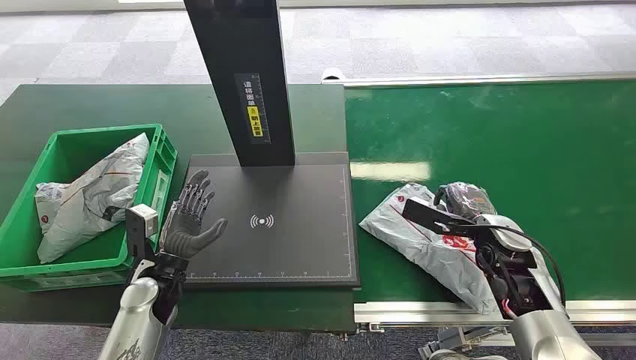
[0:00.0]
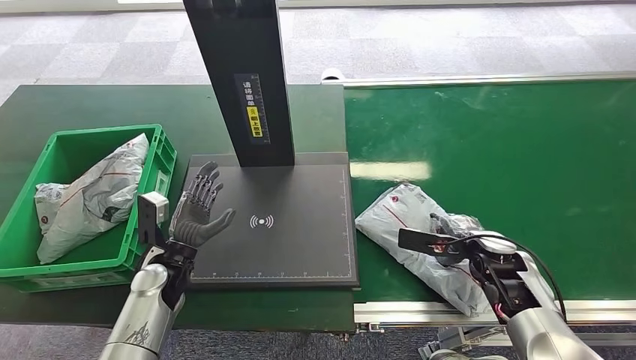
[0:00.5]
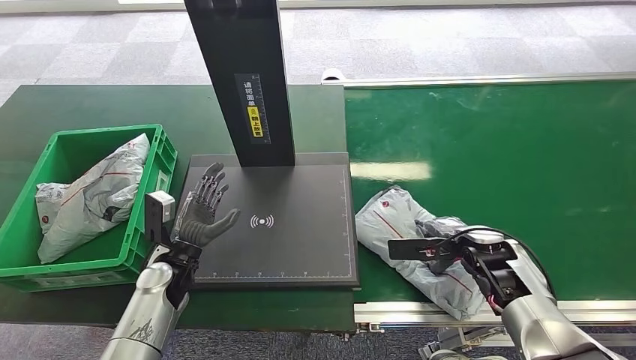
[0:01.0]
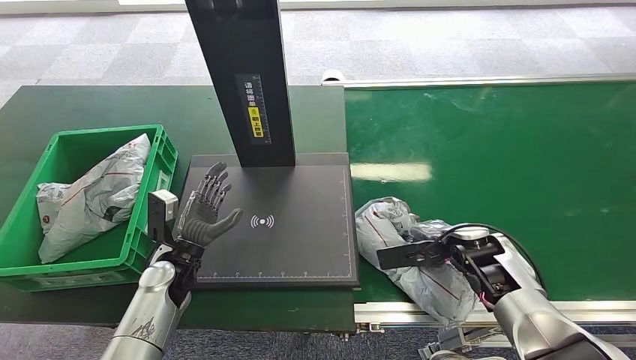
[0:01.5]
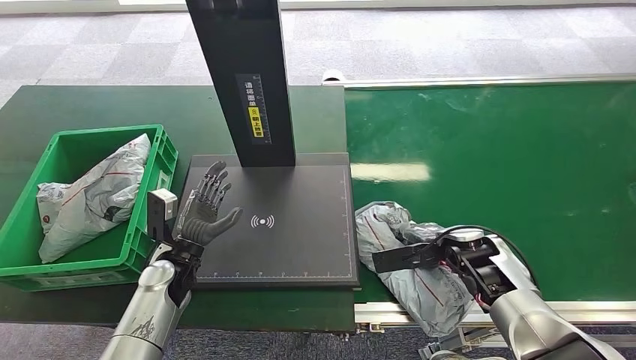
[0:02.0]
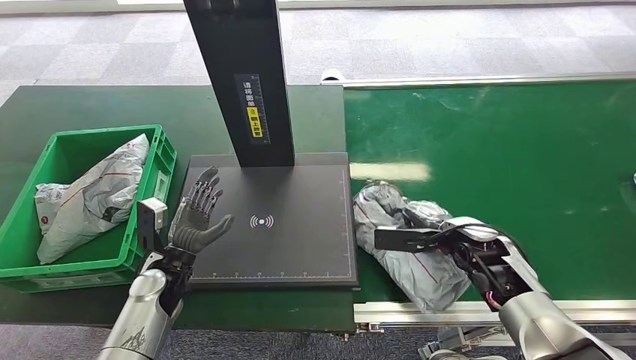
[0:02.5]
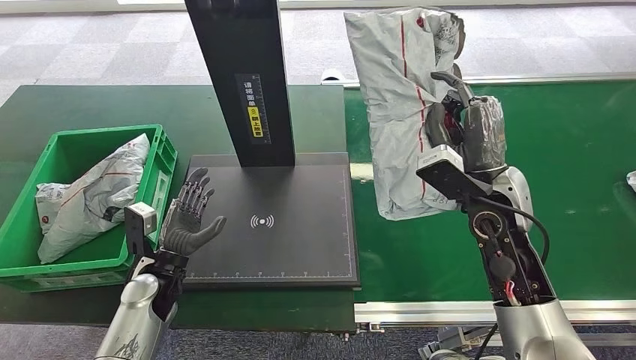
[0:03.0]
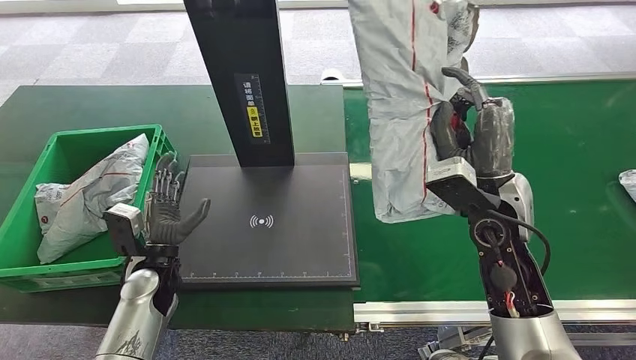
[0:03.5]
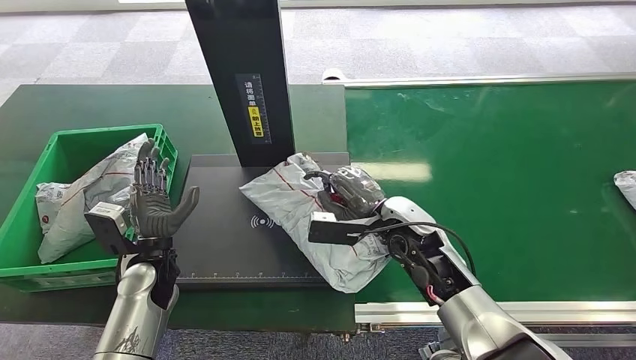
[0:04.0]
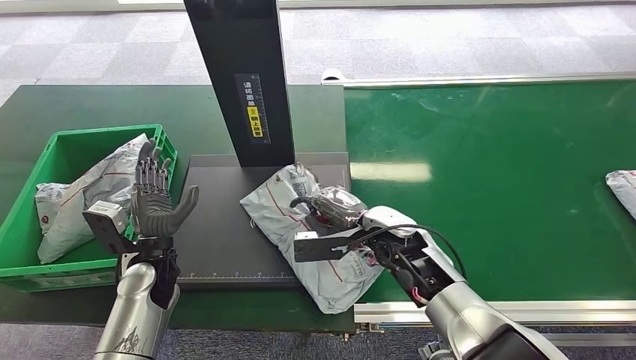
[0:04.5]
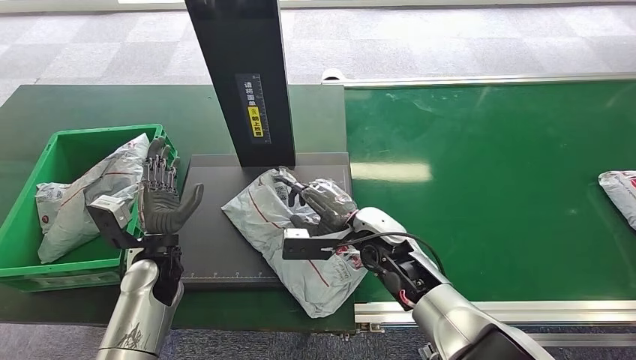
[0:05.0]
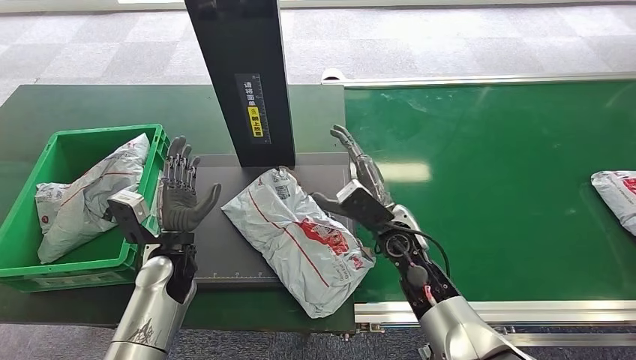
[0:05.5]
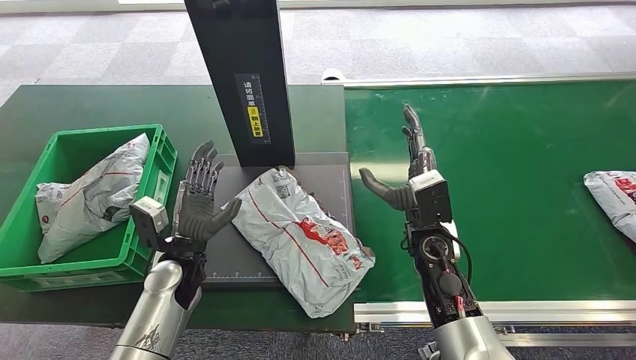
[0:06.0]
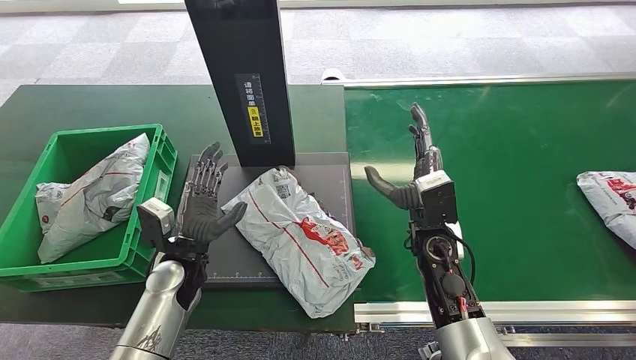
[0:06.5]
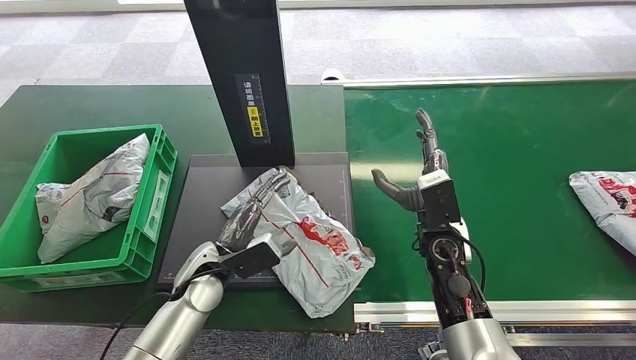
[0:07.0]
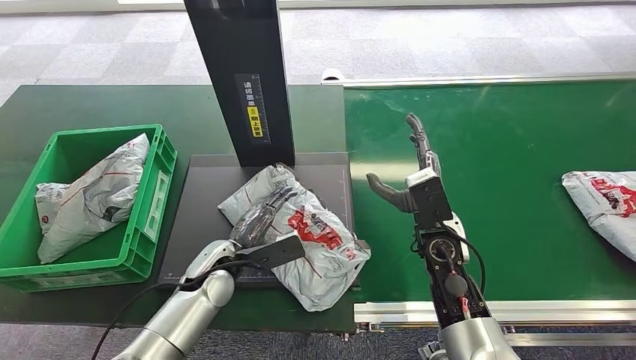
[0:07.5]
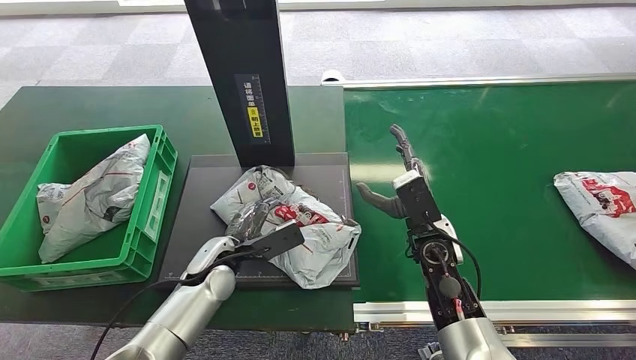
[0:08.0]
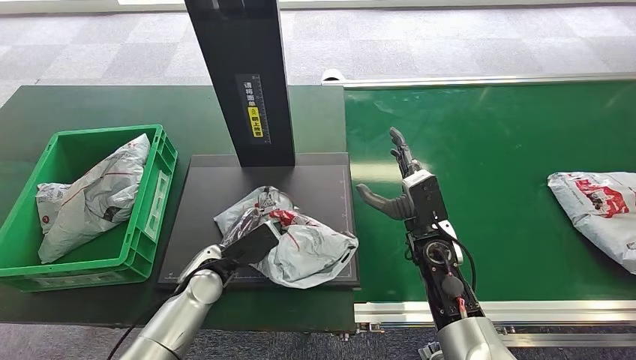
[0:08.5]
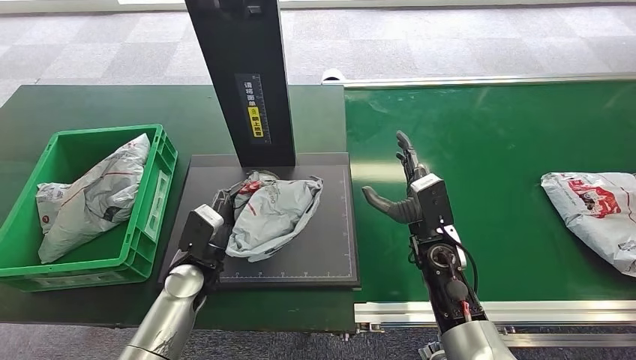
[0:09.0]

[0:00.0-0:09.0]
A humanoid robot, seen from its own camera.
Step, 0:00.0 to 0:02.5: Pick up the package from the conveyor belt.
Step, 0:03.5 to 0:05.0: Place the package onto the inbound machine.
Step, 0:05.5 to 0:08.5: Pick up the package from the inbound machine.
0:04.5 to 0:07.0: The right hand ends up some 5 cm from where it was. Meanwhile the left hand shifts about 10 cm to the right.

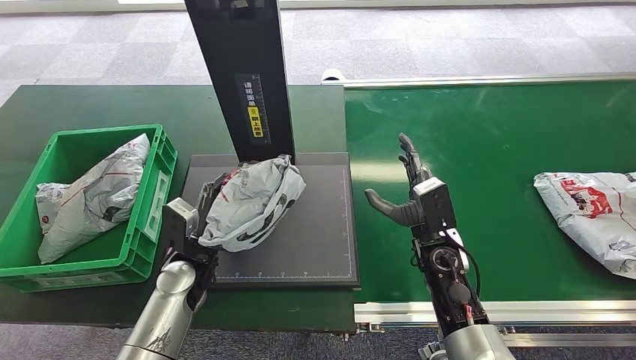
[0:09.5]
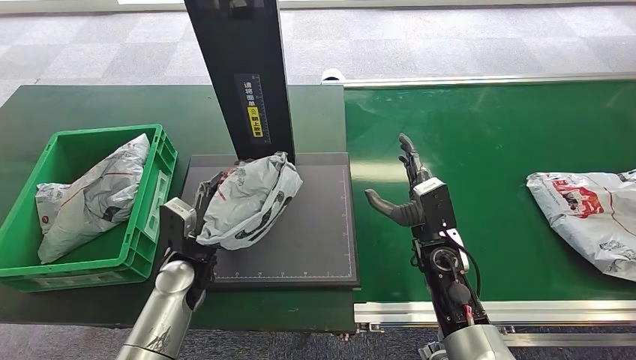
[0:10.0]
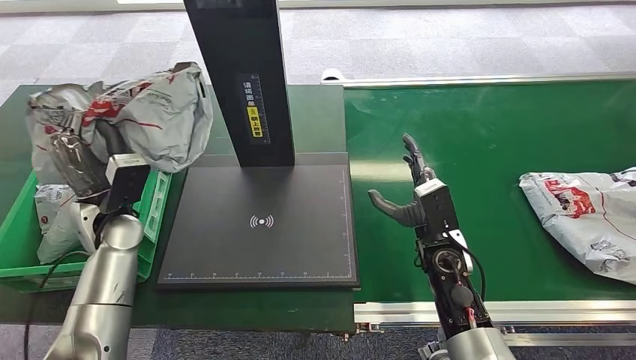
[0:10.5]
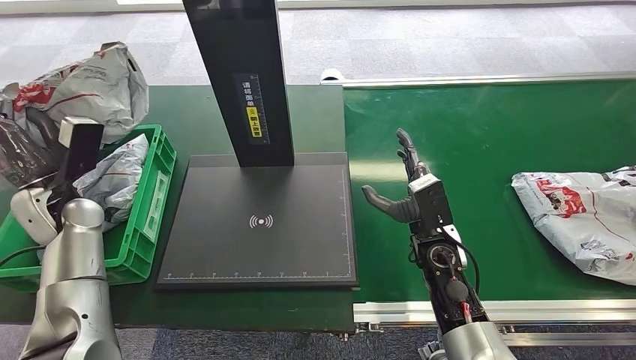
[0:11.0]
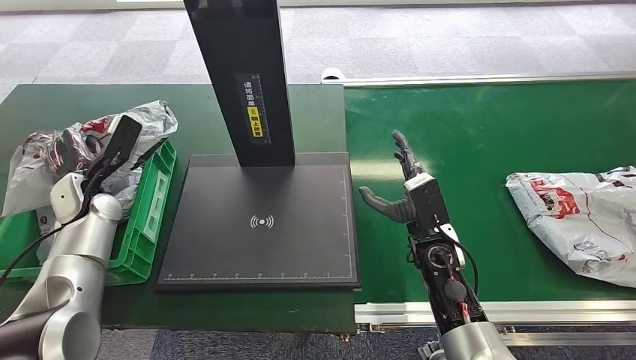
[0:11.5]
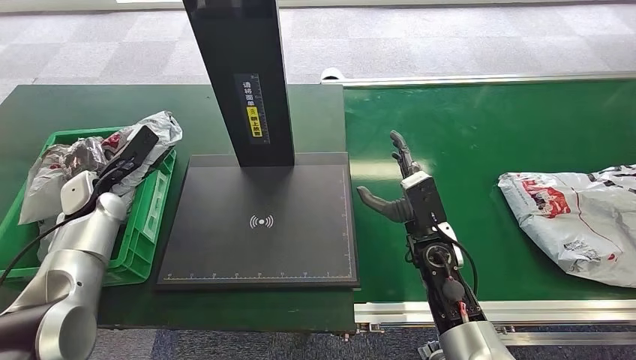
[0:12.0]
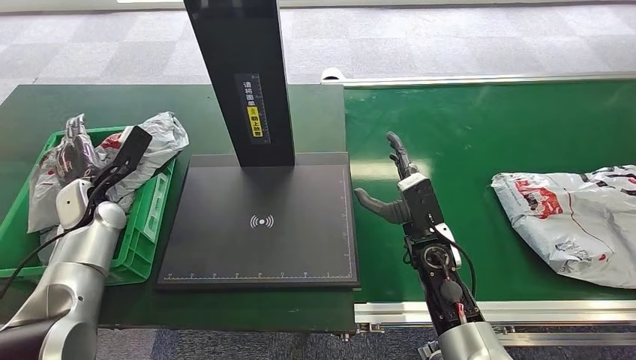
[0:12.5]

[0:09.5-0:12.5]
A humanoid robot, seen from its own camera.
Step, 0:09.5 to 0:12.5: Place the package into the parcel locker.

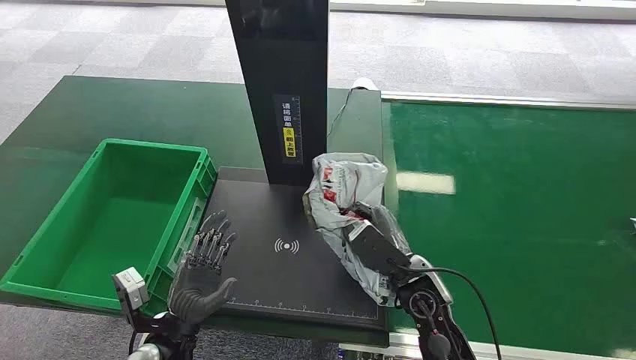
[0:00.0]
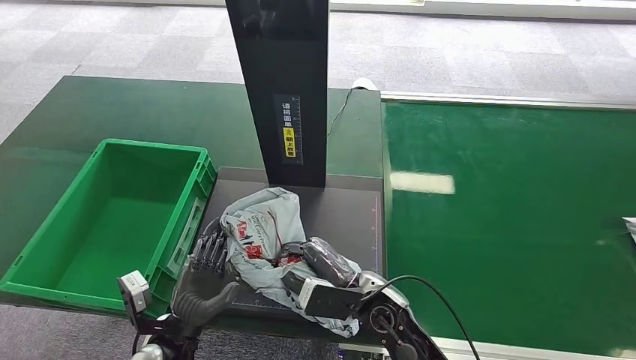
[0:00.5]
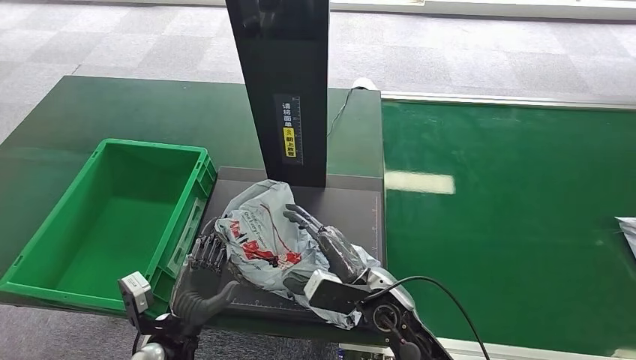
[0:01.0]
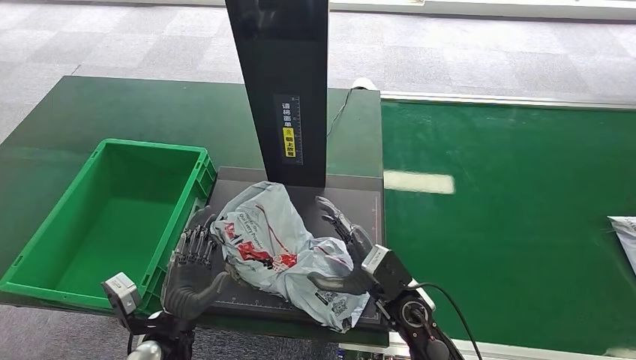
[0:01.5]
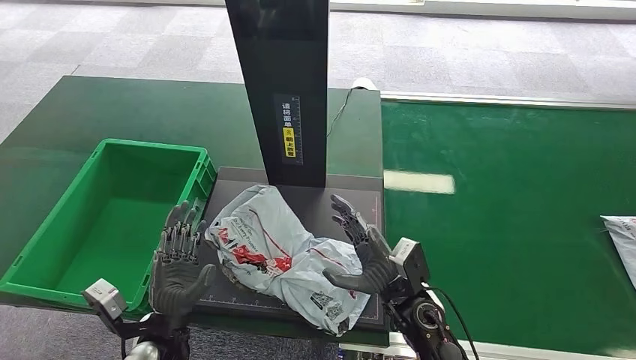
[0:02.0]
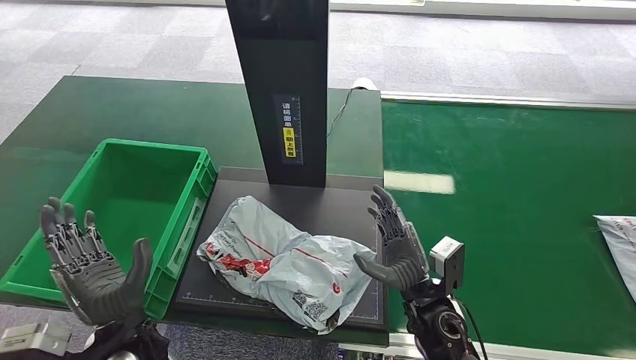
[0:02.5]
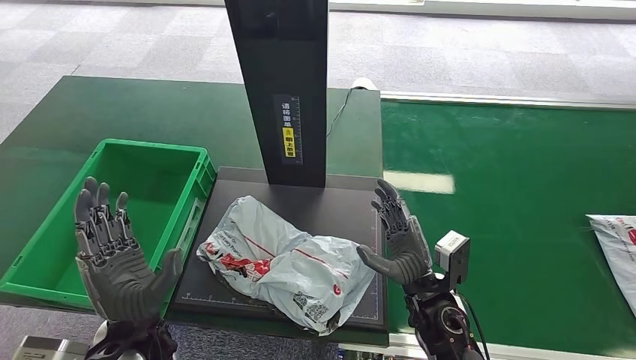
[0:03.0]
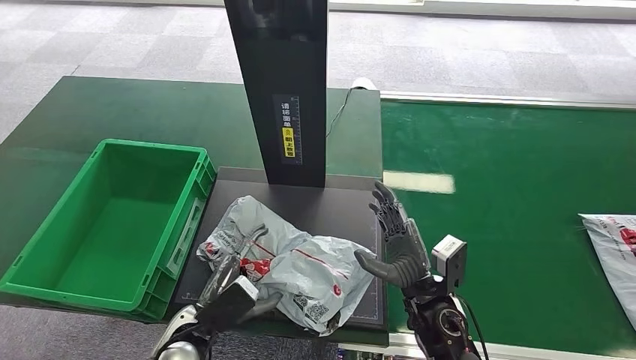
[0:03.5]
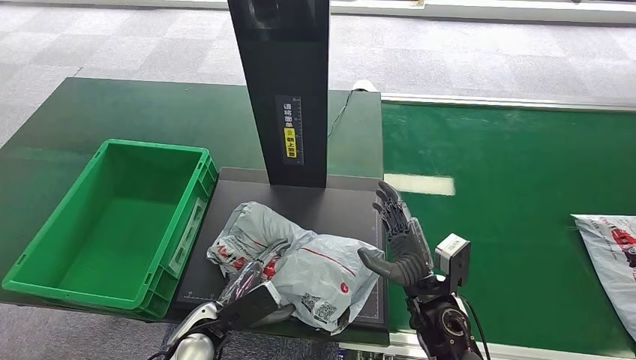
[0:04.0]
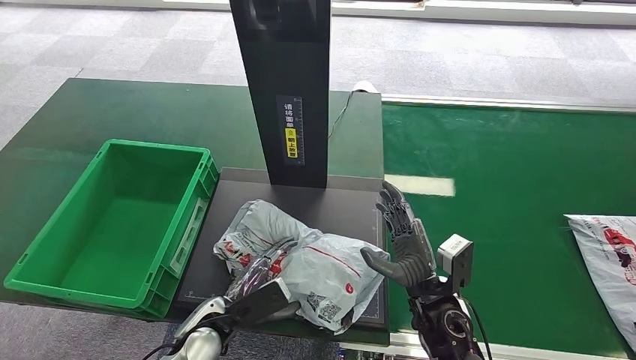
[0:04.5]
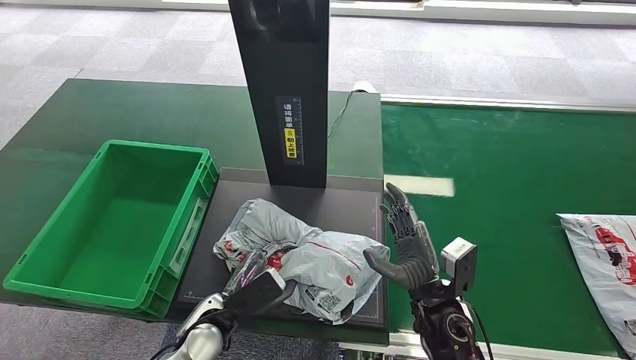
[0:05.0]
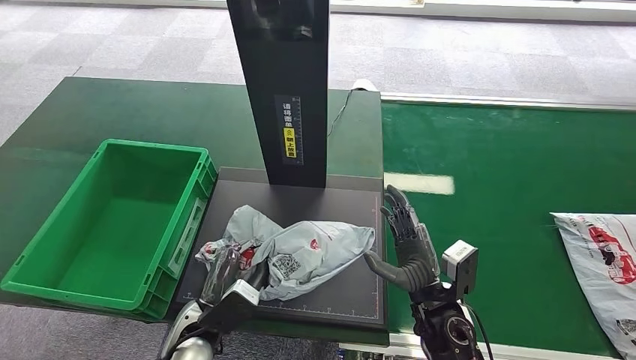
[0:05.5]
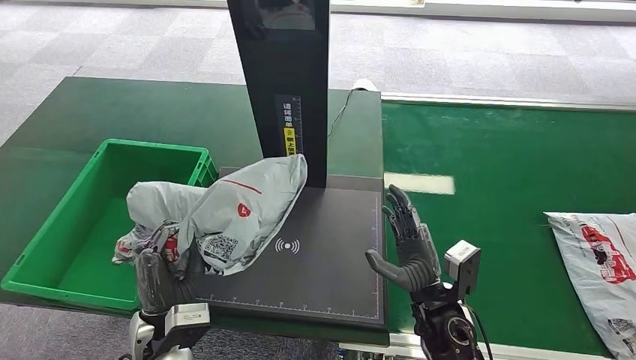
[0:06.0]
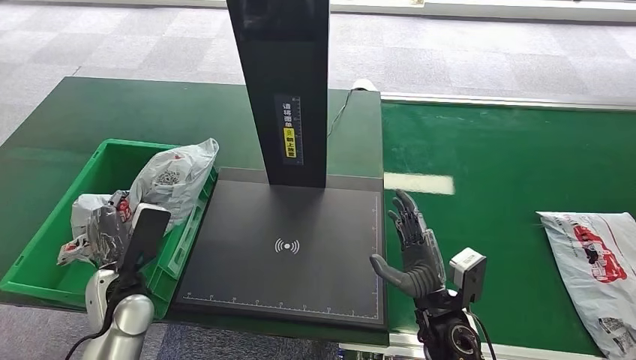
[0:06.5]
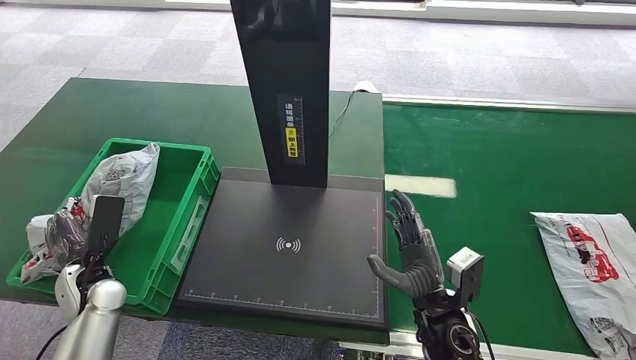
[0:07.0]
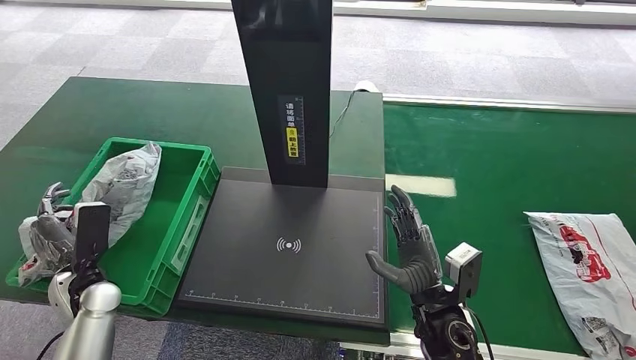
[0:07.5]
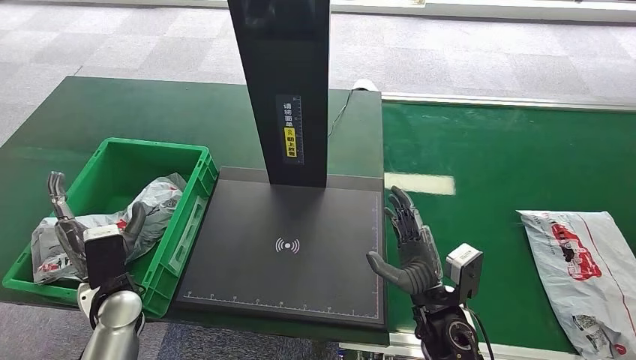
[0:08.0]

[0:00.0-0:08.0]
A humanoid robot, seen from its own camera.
0:02.0 to 0:04.0: The left hand goes upward and returns, some 10 cm each way.
0:04.0 to 0:06.0: The left hand shifts some 5 cm upward.
0:06.0 to 0:08.0: The left hand goes about 15 cm to the left and forward.
